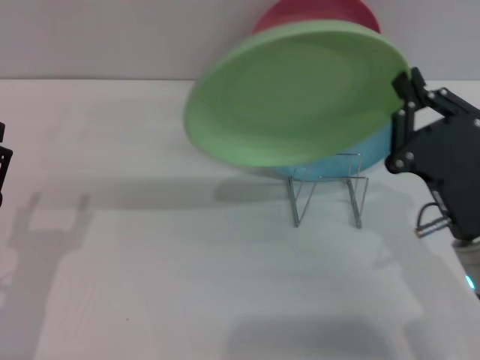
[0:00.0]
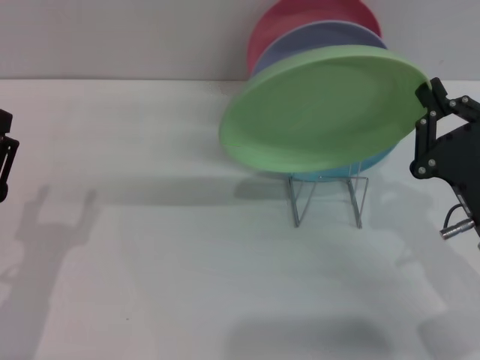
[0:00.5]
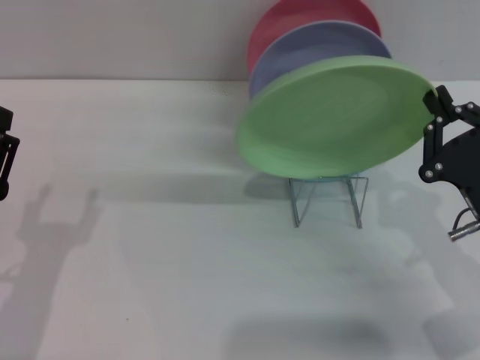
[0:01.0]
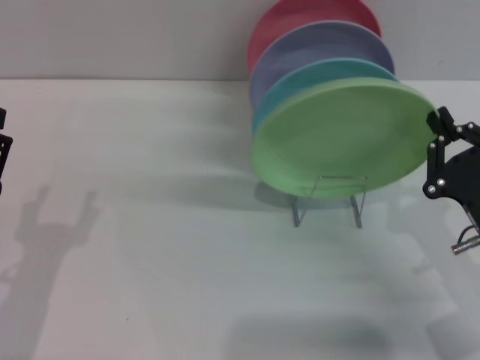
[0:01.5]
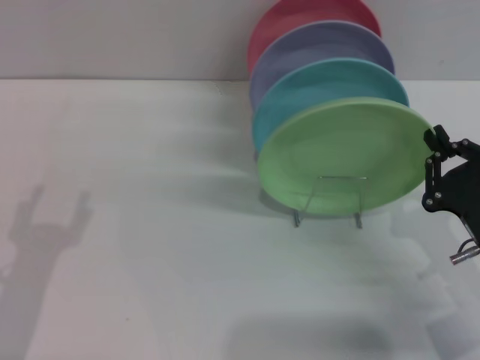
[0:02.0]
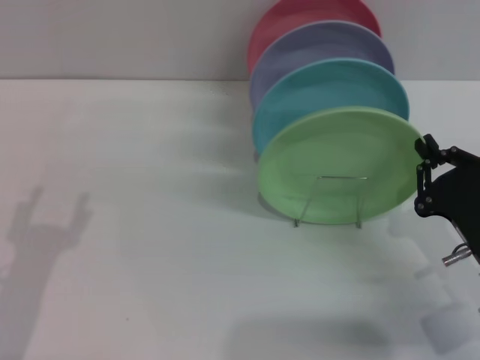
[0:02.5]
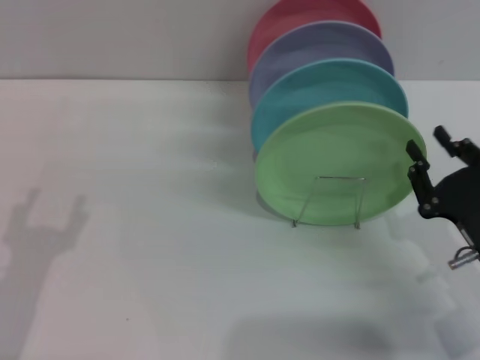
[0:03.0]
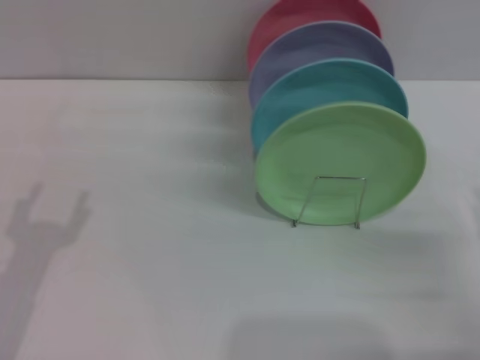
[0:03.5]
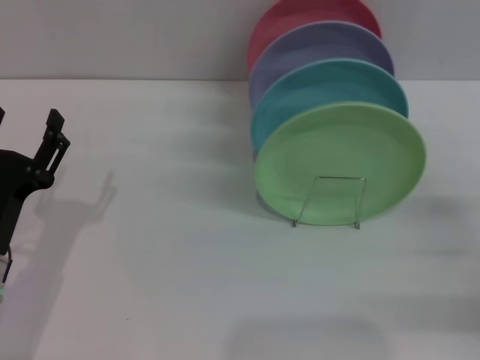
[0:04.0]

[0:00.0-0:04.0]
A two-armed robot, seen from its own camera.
Task of the whole recording: Grip the plate with one hand, pass it to the other, then set it on the shelf.
Step, 0:00.0 to 0:03.0: Place the plate on the shelf with the right gripper.
0:00.0 to 0:02.0: The right gripper shifts about 5 cm to the right.
0:02.0 to 0:04.0: The right gripper shifts about 10 cm to the right, and opens up.
